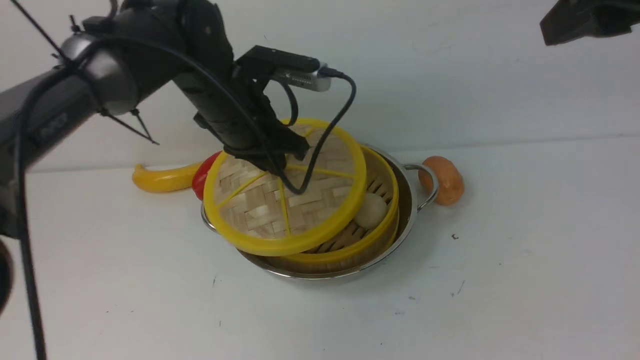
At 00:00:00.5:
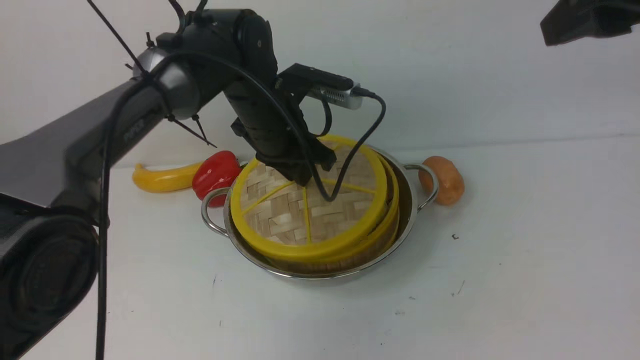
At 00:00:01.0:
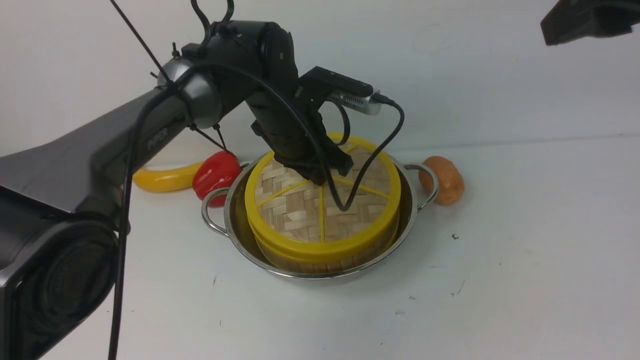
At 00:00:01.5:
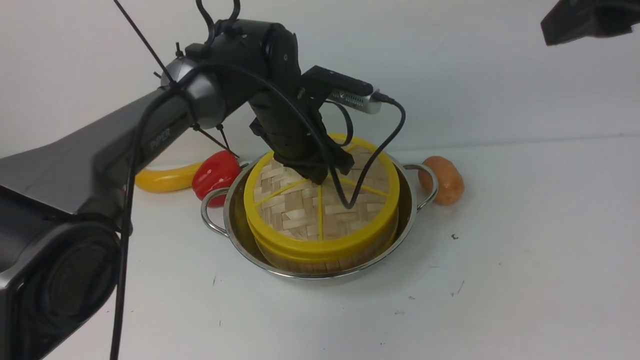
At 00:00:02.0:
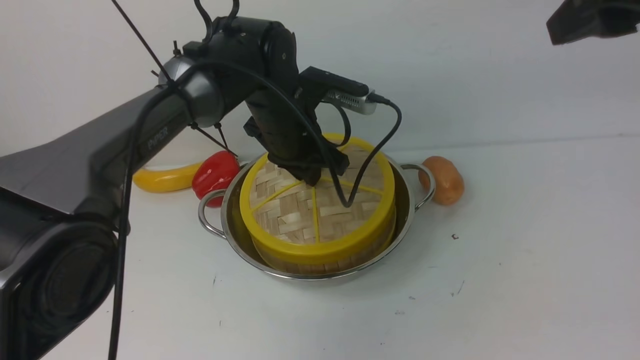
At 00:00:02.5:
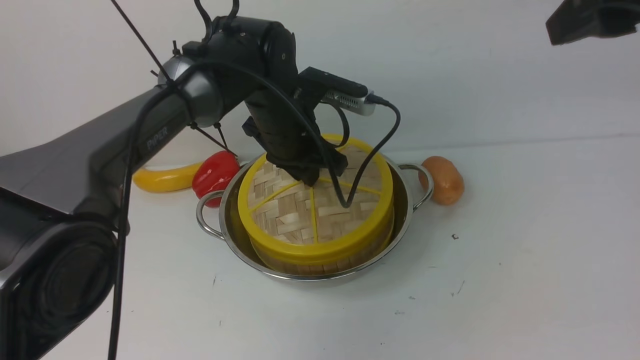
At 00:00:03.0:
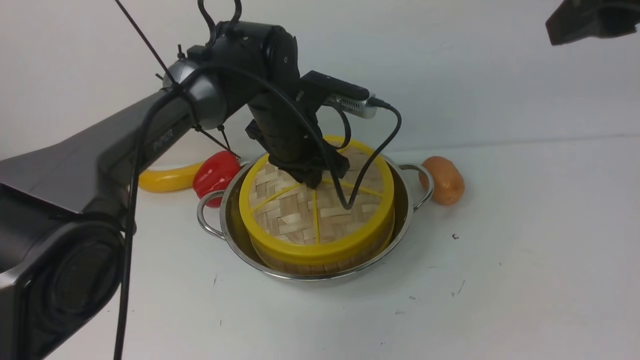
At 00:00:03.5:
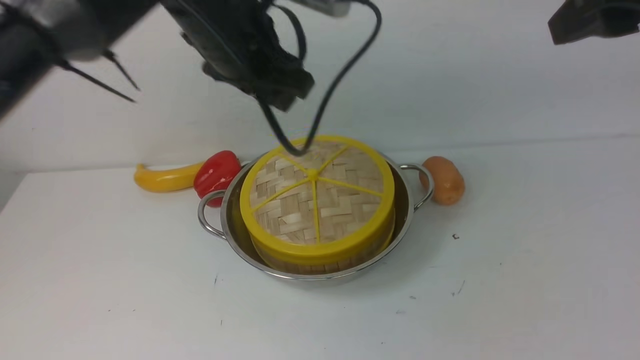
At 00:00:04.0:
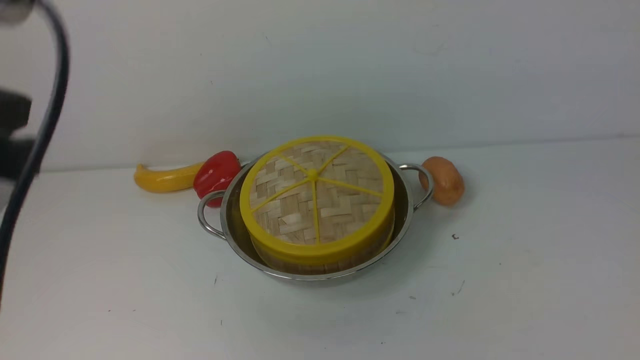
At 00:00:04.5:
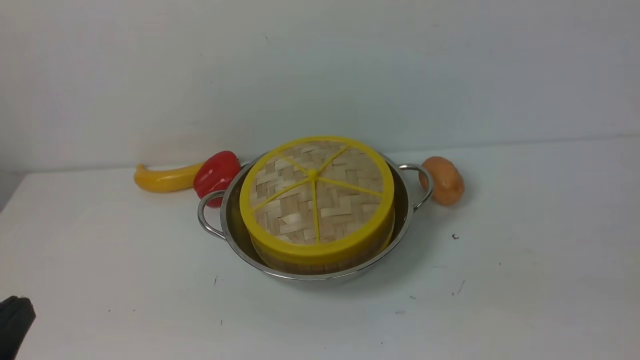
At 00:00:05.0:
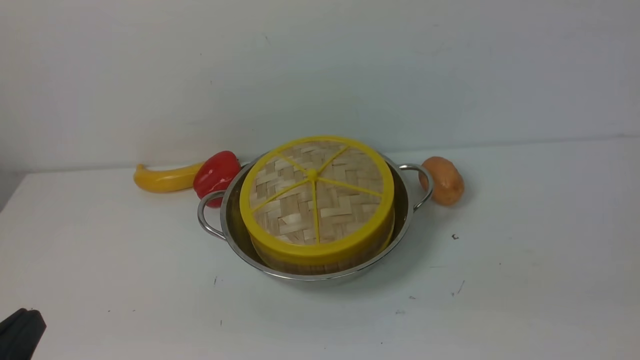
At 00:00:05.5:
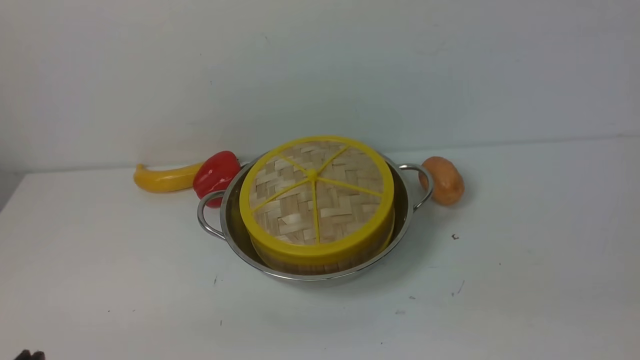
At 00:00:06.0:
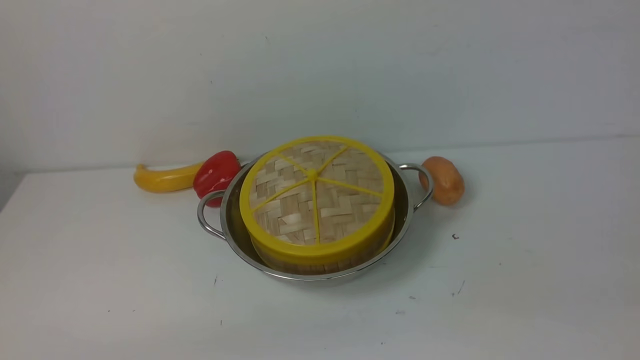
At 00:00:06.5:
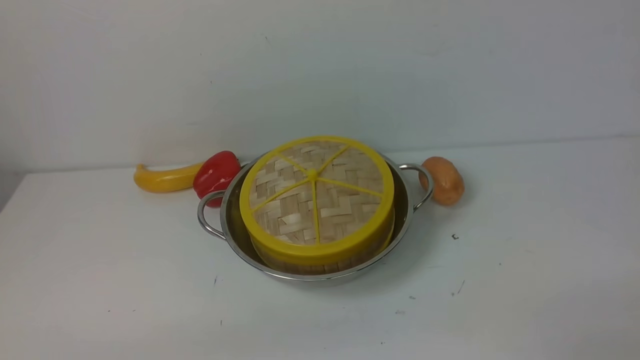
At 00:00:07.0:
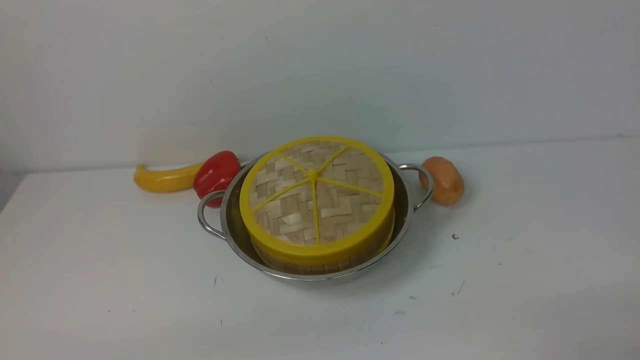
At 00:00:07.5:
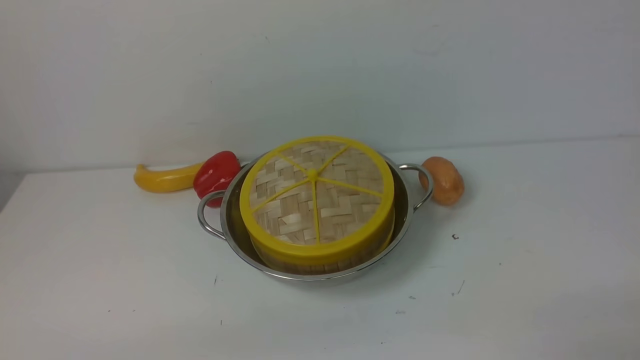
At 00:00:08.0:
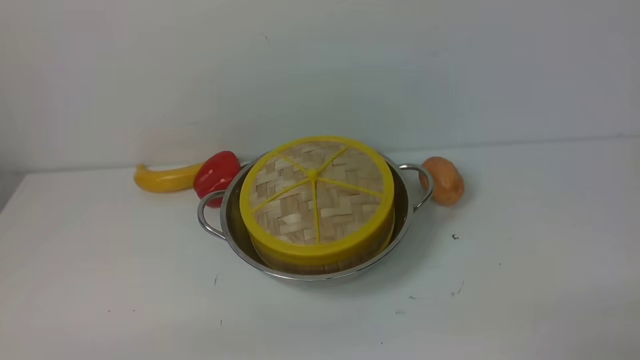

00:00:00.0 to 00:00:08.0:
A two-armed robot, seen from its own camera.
Task of the whole recording: place the steamer in the pot on the white table, and put the lid on the steamer.
Step, 00:00:00.0 to 00:00:03.5: use the left arm to place the steamer lid on the steamer.
00:00:00.0 to 00:00:02.0: The left gripper ends up some 5 cm from where it was.
00:00:02.0 to 00:00:04.0: The right gripper shifts some 15 cm backward, and closes; the left gripper moves backward, upward and to the left, some 35 cm, and closes.
00:00:04.0 to 00:00:06.0: The left gripper heads downward and backward, covering approximately 25 cm.

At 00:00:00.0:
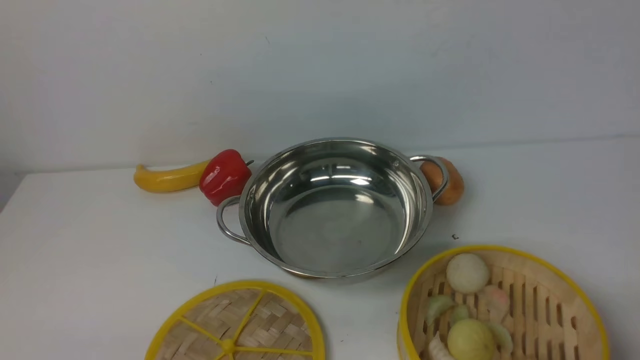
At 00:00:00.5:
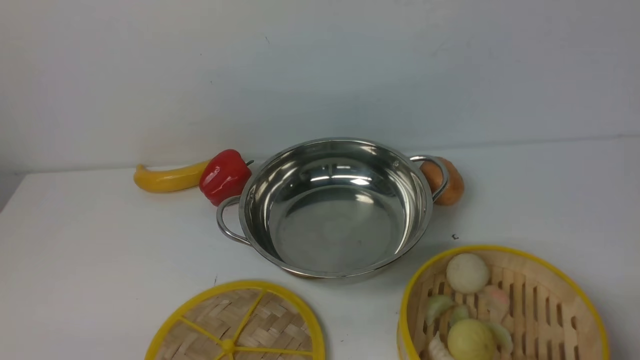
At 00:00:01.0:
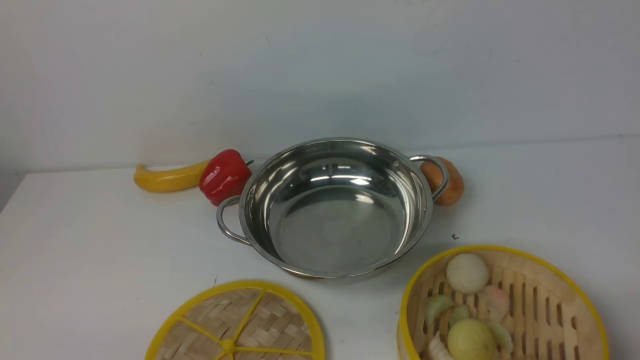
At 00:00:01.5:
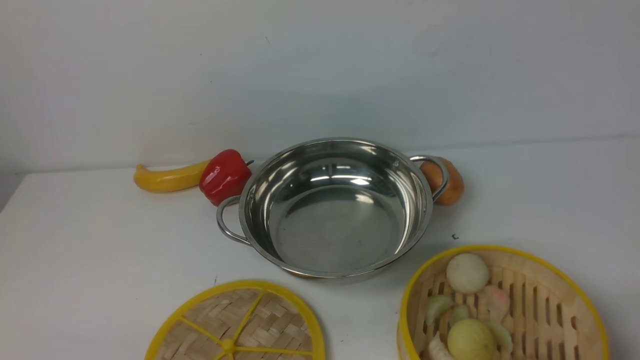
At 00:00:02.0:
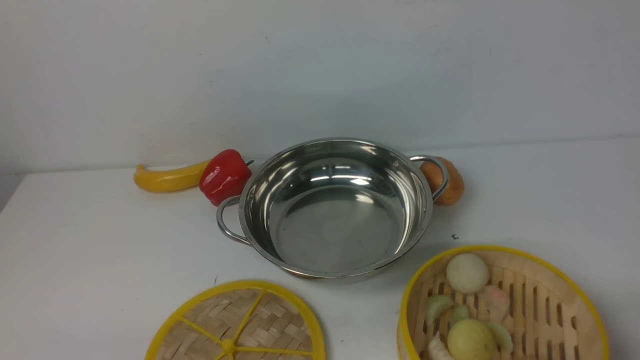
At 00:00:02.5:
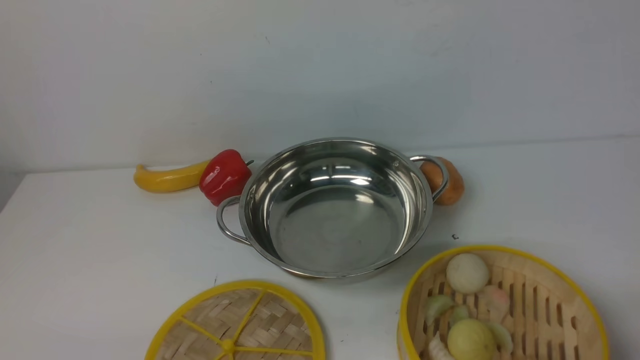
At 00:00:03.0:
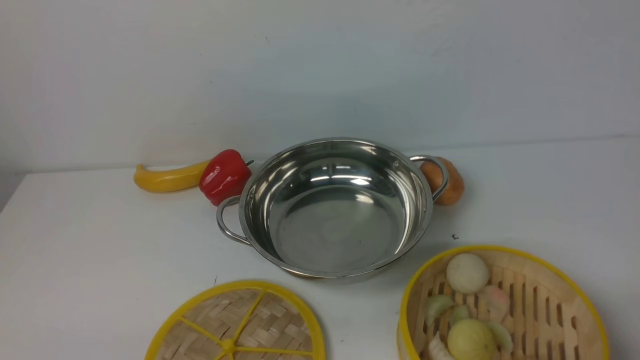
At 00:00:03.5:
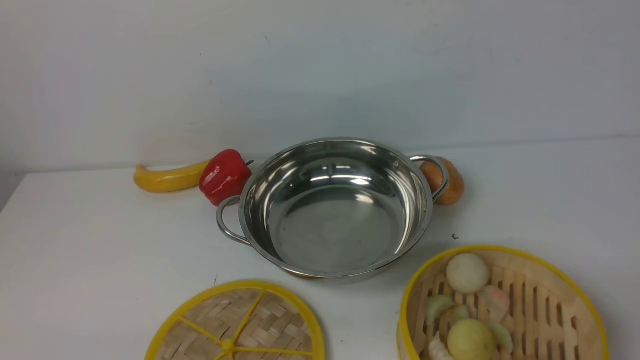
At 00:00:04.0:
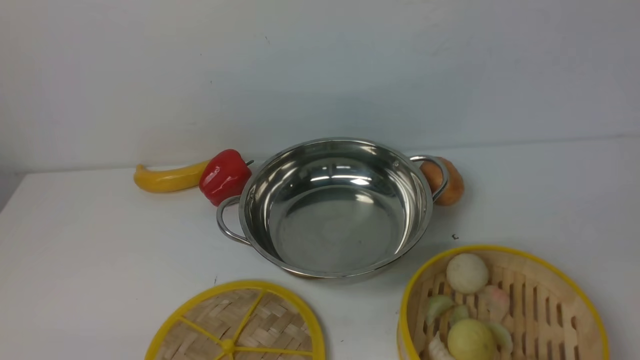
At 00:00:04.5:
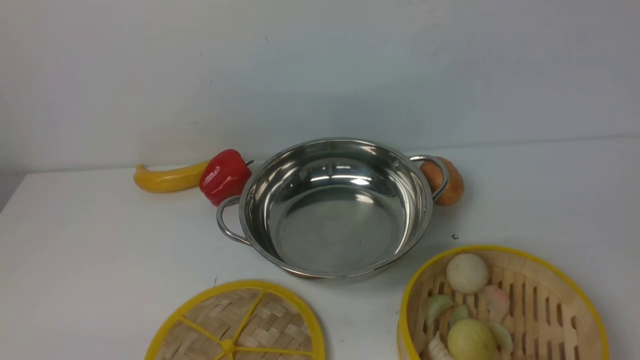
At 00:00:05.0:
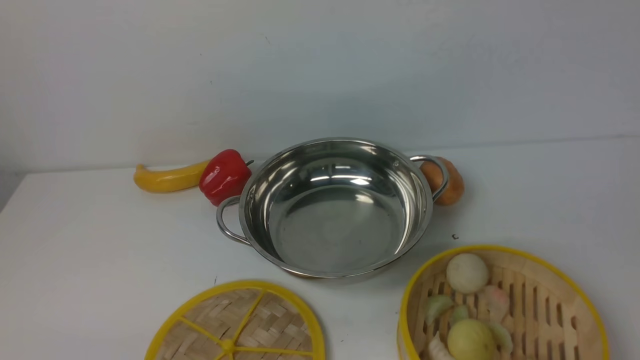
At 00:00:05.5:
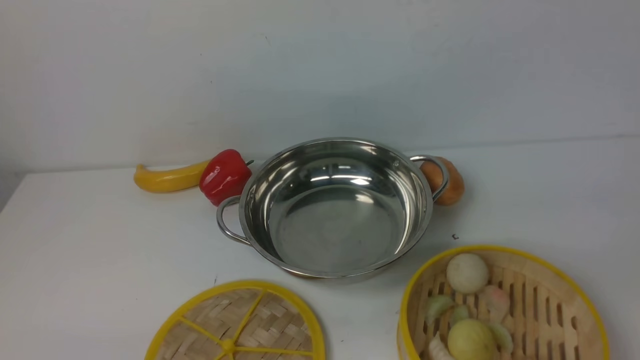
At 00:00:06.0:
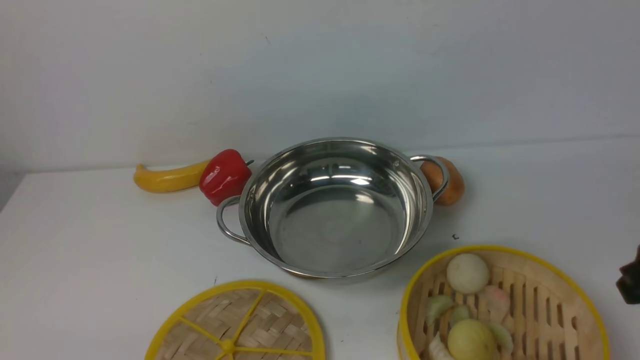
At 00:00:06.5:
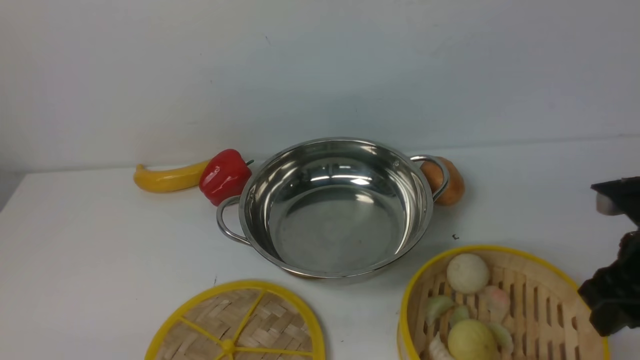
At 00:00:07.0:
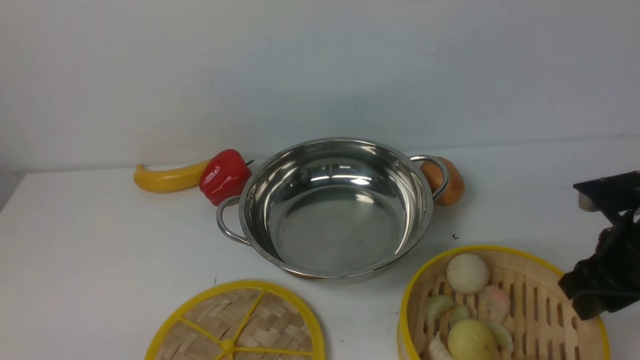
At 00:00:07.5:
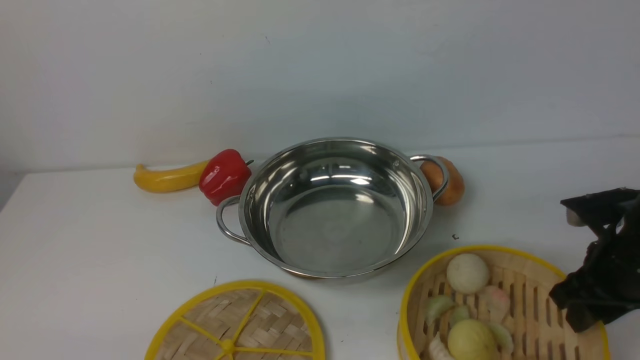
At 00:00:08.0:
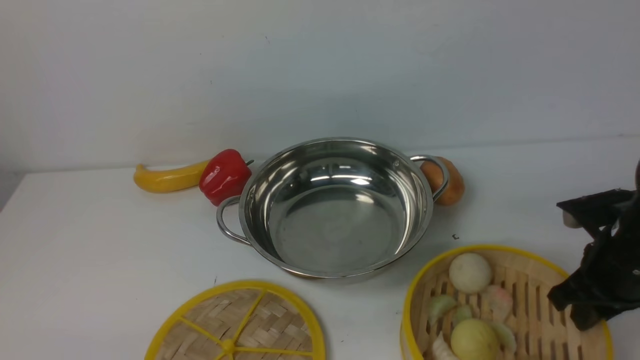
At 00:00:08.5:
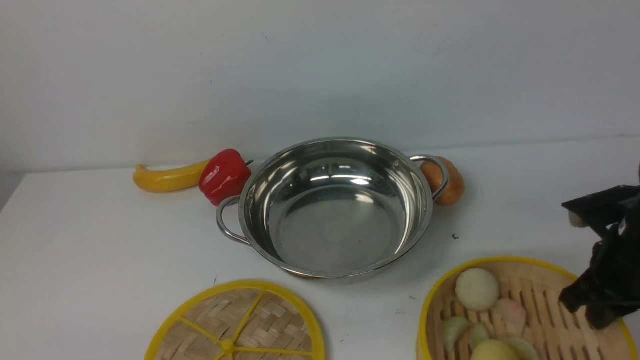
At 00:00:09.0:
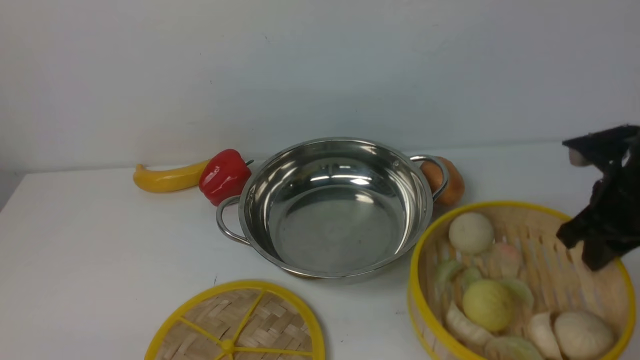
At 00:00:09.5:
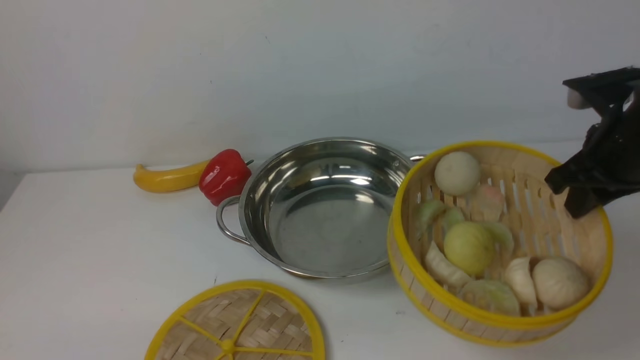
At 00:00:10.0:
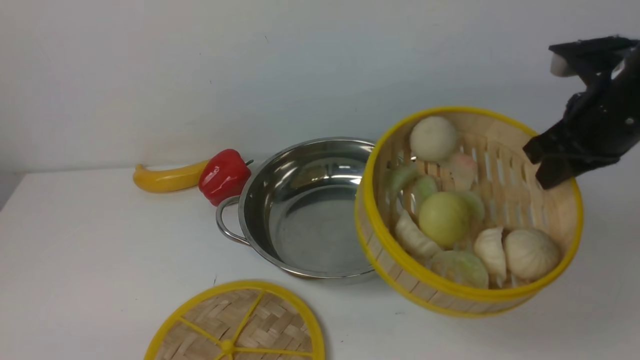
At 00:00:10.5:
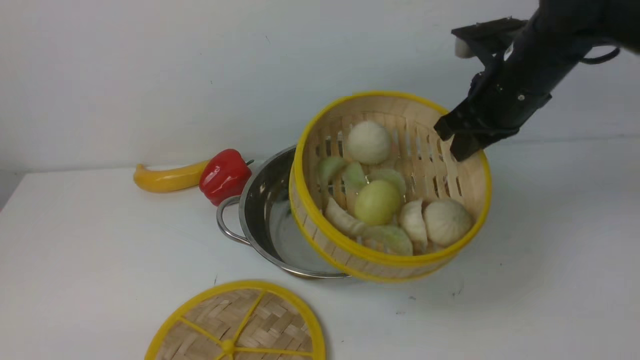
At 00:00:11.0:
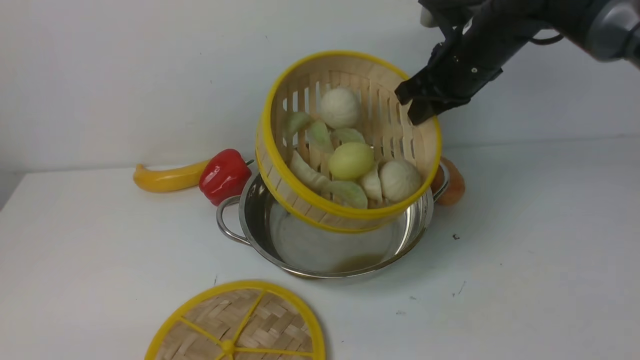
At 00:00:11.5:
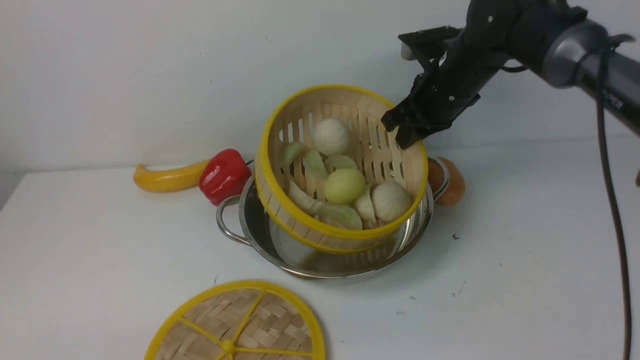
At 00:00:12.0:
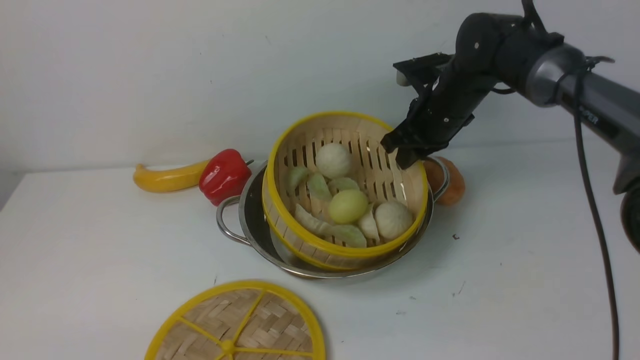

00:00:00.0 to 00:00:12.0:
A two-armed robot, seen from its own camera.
Task of the whole recording: place the steamer in the pot on the white table, and put the lid on the steamer.
Step, 00:00:00.0 to 00:00:09.0: use the right arm to lift the steamer closest to it.
00:00:00.0 to 00:00:02.0: Both grippers stay about where they are.
00:00:06.0 to 00:00:08.0: The right gripper moves downward and forward, some 15 cm, and closes up.
00:00:08.0 to 00:00:10.0: The right gripper moves upward and forward, some 15 cm.
00:00:10.0 to 00:00:12.0: The right gripper shifts some 20 cm forward, to the left and downward.
